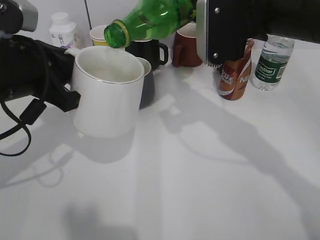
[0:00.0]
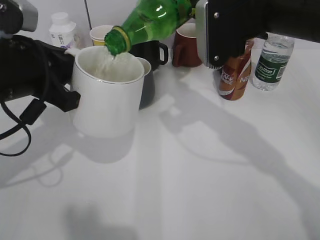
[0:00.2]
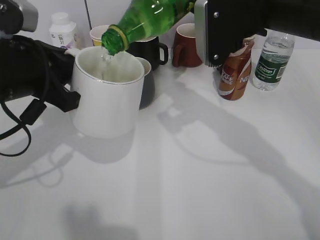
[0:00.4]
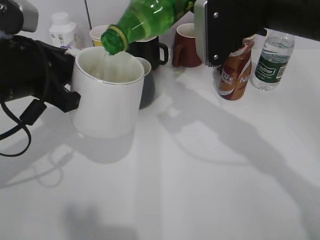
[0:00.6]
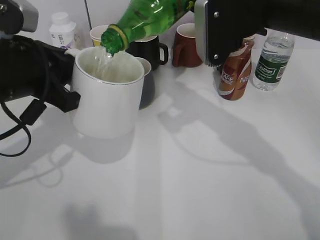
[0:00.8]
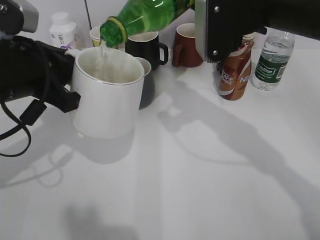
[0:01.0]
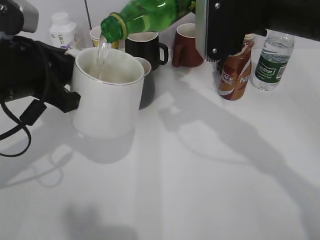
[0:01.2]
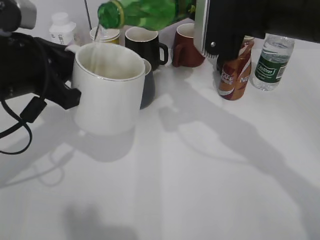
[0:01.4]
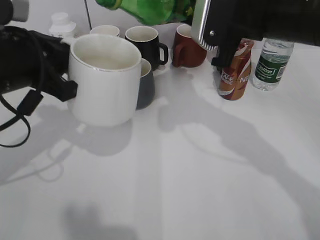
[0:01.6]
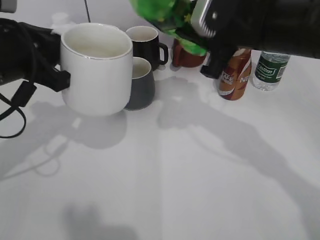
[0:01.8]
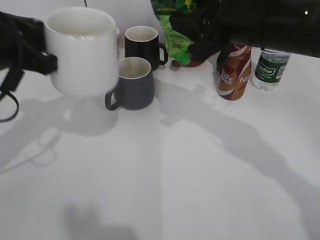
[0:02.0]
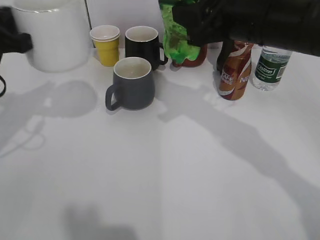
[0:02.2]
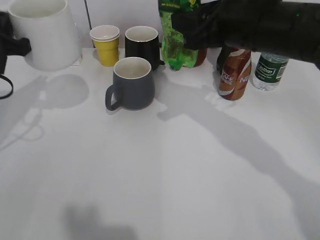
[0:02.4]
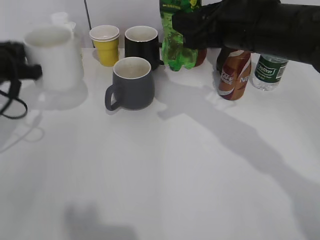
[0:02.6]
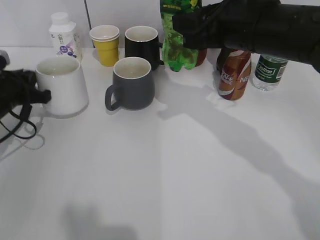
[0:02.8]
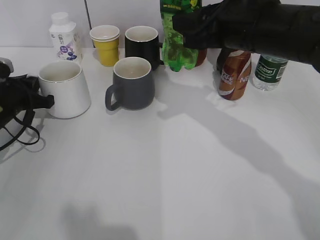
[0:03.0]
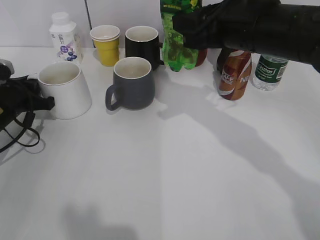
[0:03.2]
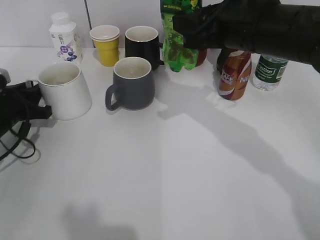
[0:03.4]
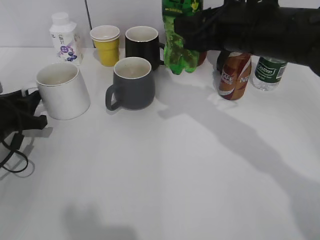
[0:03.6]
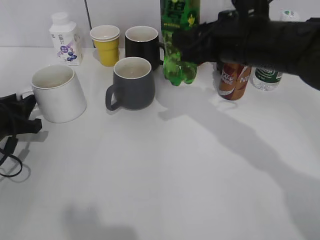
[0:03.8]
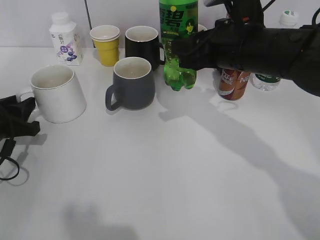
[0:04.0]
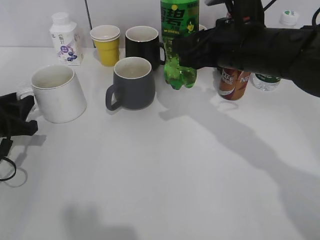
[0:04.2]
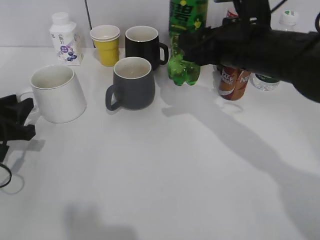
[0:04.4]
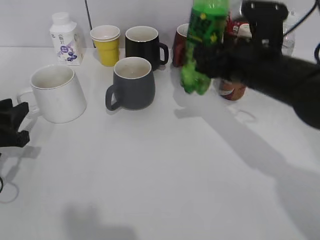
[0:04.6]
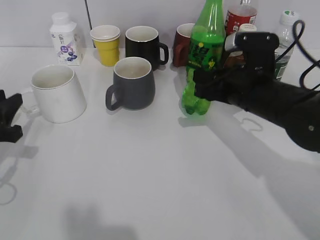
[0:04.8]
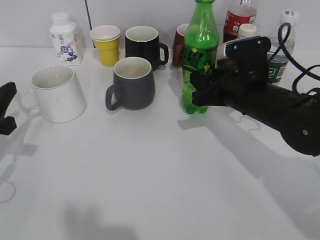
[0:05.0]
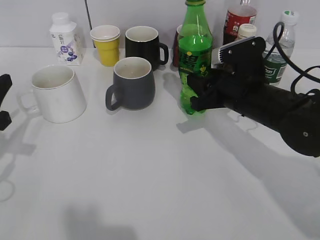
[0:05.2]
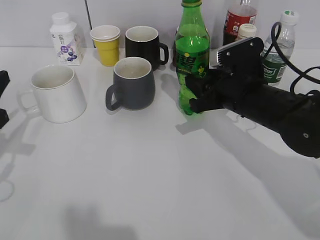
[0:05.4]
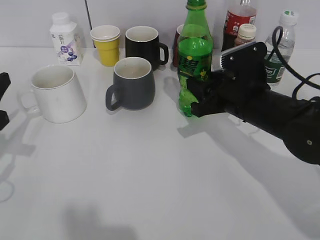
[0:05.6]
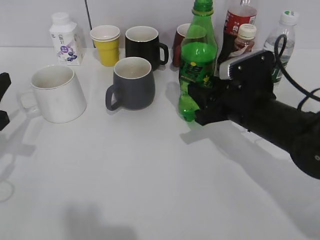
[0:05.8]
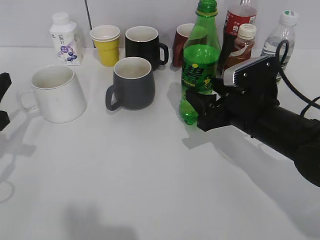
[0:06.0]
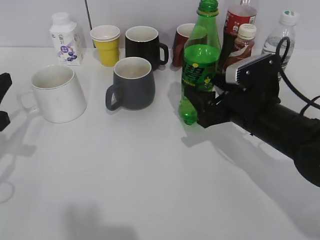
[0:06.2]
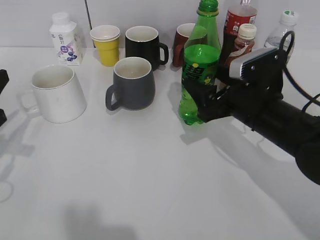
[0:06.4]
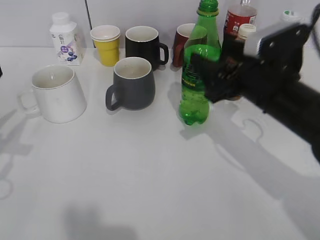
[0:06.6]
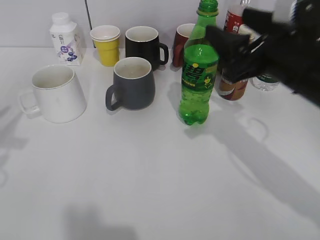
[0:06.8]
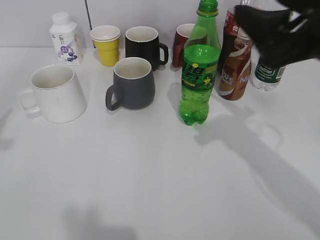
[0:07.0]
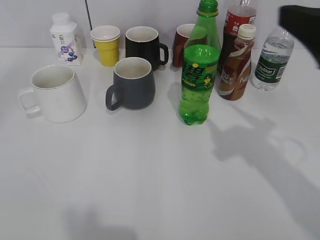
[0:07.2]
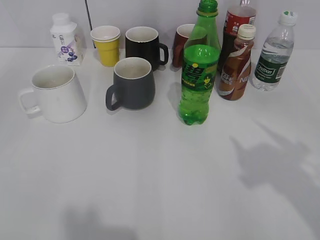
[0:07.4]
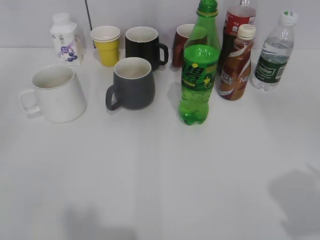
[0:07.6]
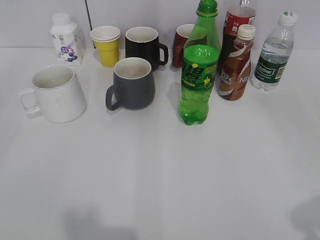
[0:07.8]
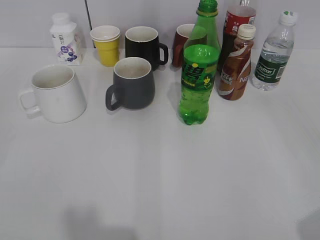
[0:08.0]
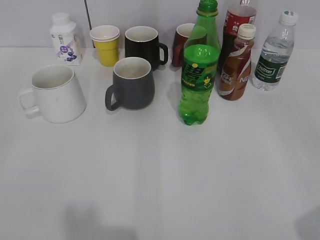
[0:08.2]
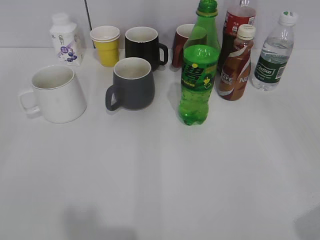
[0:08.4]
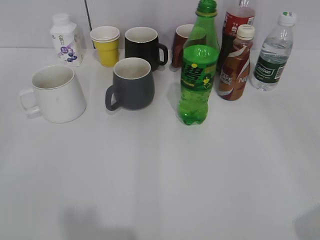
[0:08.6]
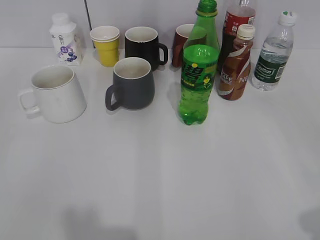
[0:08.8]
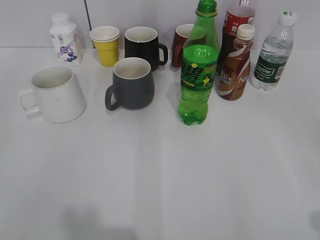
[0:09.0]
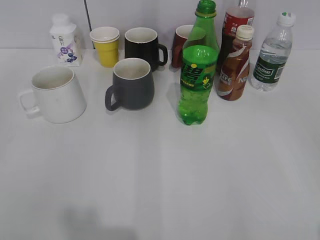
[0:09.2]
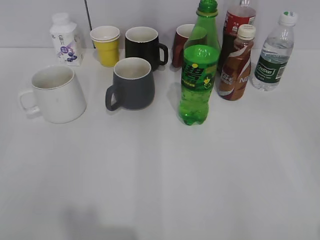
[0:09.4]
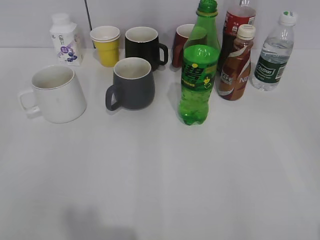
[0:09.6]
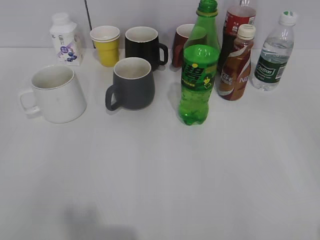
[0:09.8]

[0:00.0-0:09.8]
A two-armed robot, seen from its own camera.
Step, 0:01.8 to 0:03.4: Place the white cup on the table with left gripper.
Step, 0:03.6 to 0:06.4: Place the sprite bottle on the table with right gripper.
0:00.0 to 0:01.4: The grippers move only a little.
0:01.4 to 0:02.8: The left gripper goes some 20 cm downward, forward and to the left.
0:02.8 to 0:04.2: The left gripper shifts some 5 cm backward, and opens up.
0:04.2 to 0:05.6: The right gripper travels downward by some 10 cm; the left gripper shifts roughly 10 cm upward and backward.
0:05.6 to 0:07.0: The left gripper moves upward, some 15 cm. The right gripper is displaced upward and backward by some 15 cm, and opens.
0:07.0 to 0:08.4: The left gripper is displaced backward by some 15 cm, and opens; the right gripper shifts roughly 25 cm backward and to the right.
